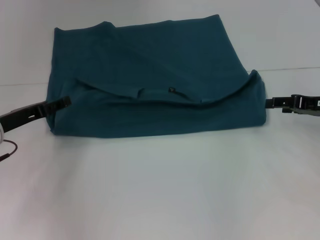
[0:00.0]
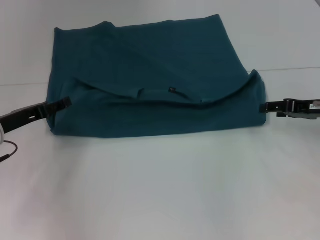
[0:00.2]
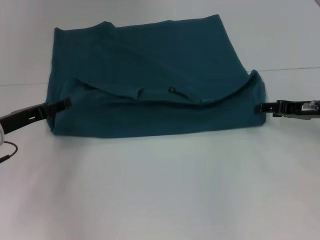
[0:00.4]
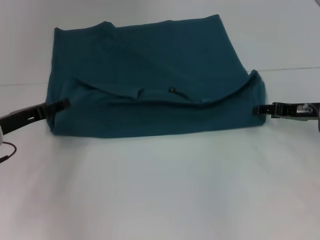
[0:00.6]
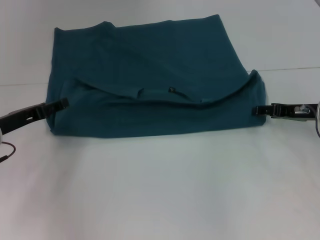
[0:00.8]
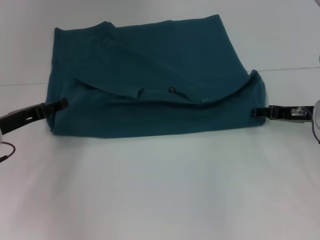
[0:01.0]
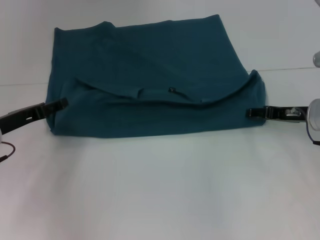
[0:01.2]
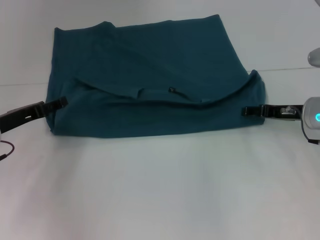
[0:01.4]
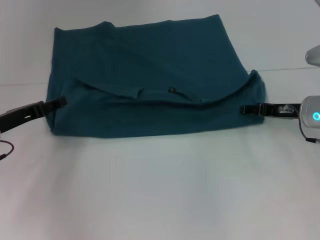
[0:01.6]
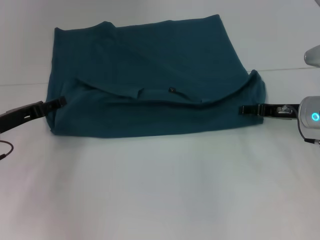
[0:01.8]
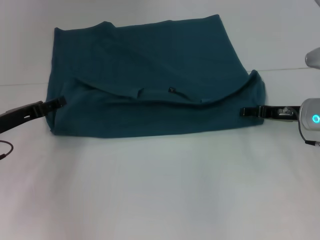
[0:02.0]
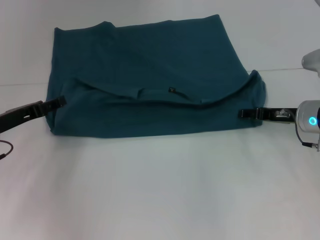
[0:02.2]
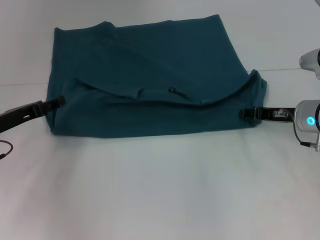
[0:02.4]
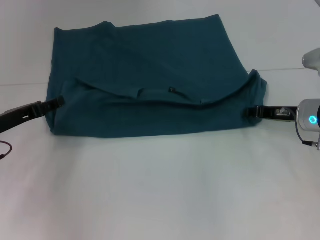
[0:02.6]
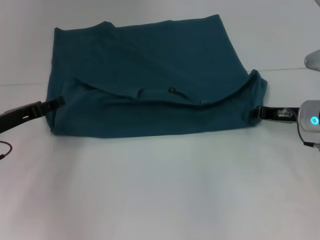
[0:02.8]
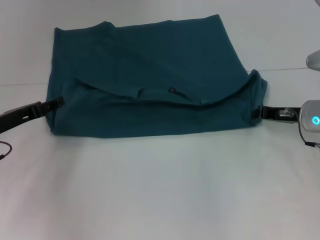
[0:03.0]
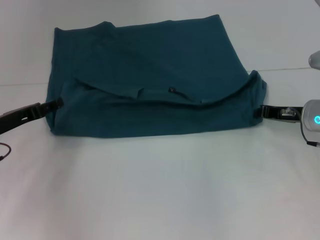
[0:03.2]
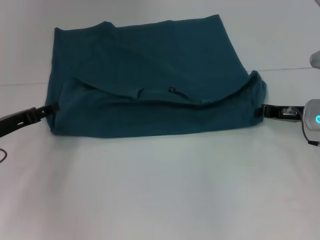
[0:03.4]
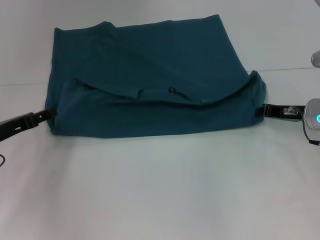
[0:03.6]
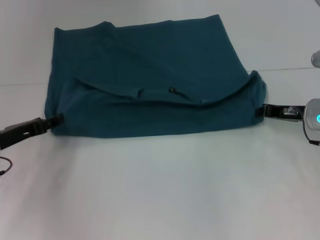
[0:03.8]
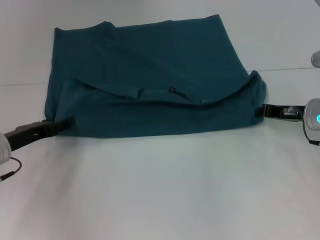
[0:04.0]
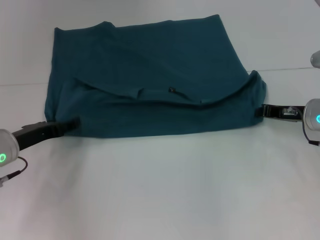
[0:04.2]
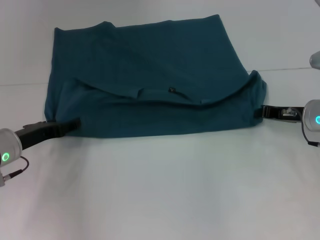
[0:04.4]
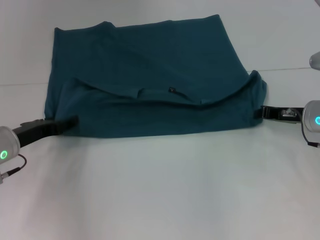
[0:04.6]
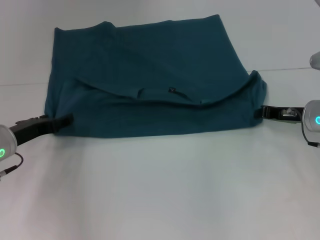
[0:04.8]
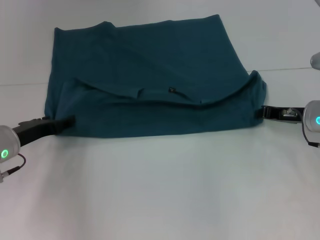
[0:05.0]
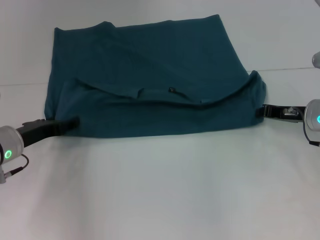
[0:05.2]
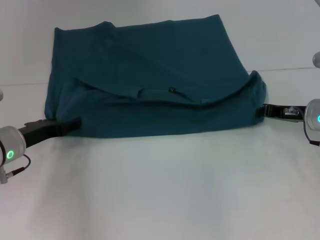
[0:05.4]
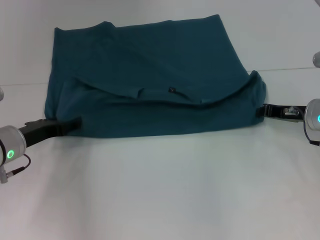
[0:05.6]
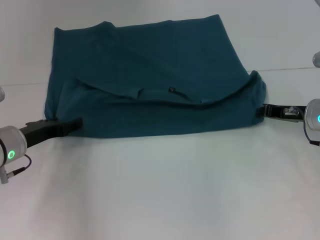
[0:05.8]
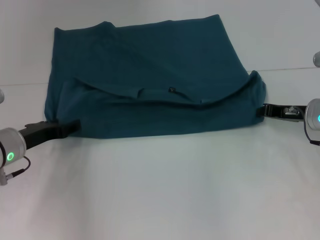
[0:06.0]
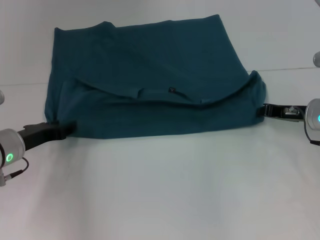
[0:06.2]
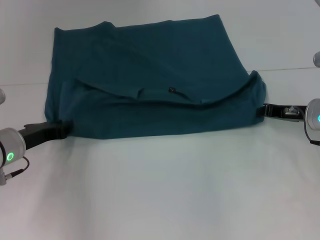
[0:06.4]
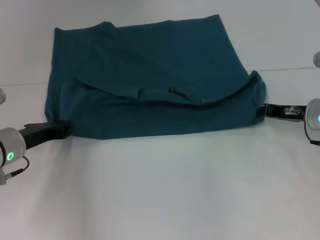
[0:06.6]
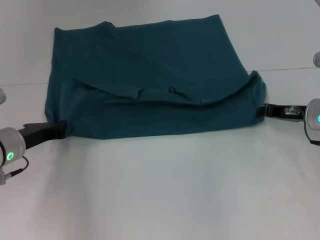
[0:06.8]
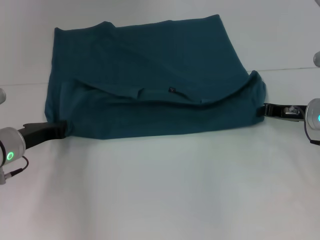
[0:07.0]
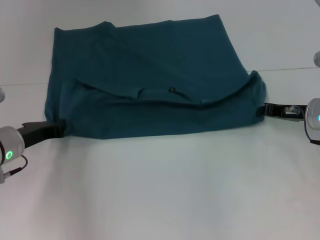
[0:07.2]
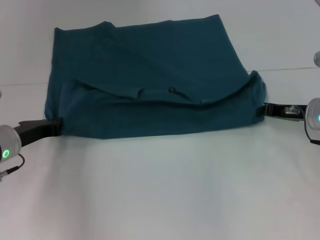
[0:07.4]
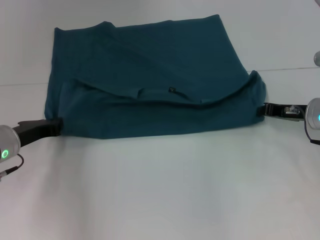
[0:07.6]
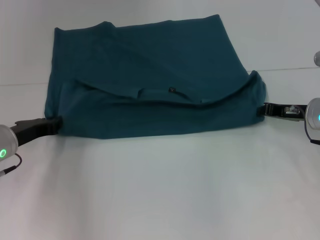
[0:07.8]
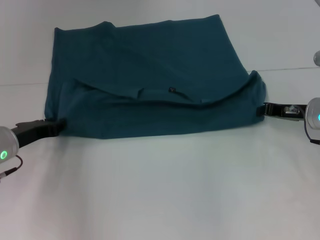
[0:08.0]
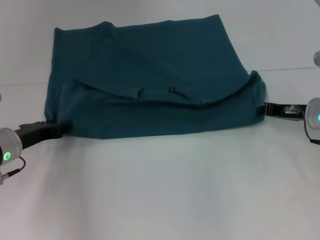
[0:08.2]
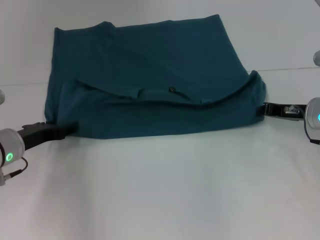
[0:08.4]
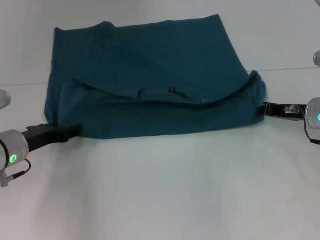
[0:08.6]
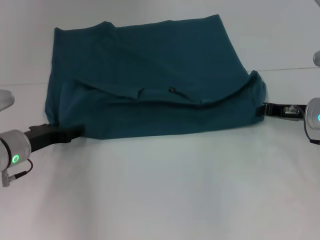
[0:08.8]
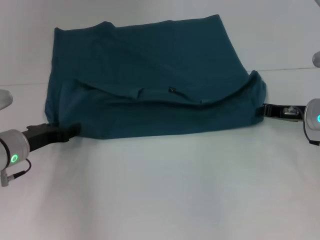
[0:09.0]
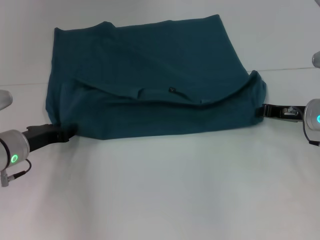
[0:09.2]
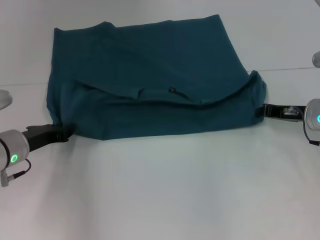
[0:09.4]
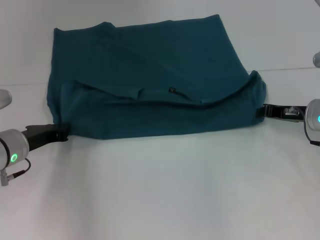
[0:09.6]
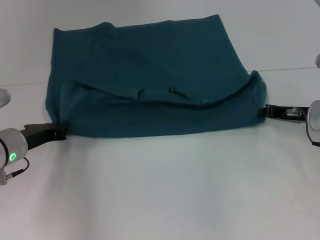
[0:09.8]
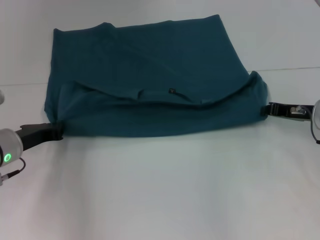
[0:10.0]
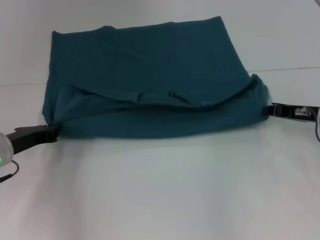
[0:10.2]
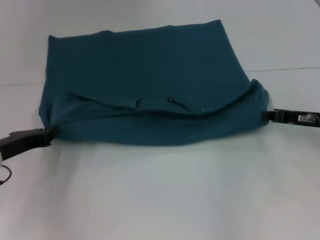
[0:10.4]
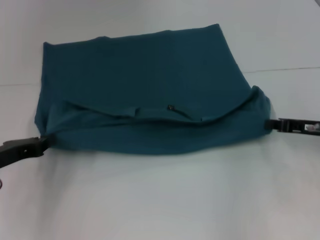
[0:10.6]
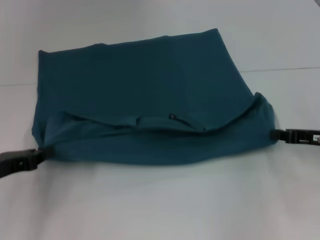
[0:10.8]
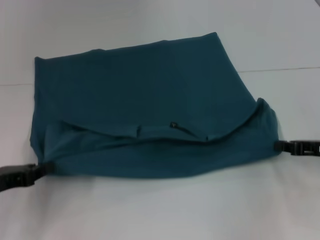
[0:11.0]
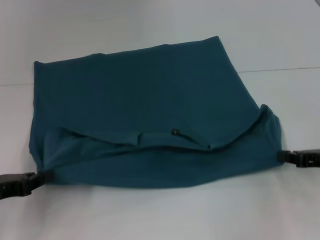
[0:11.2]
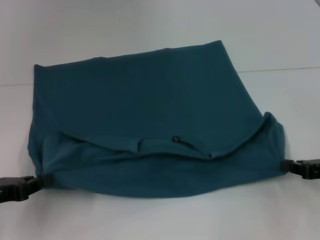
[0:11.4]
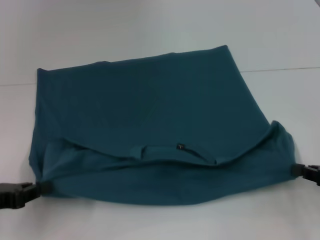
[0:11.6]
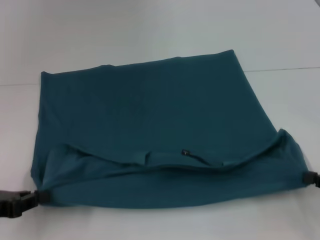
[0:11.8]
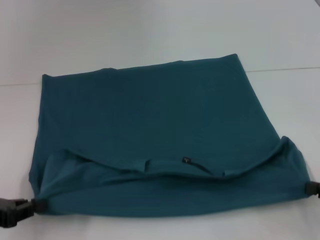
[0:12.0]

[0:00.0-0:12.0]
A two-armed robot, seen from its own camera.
0:00.0 to 0:01.6: The right gripper moves to the left, approximately 5 cm.
0:01.6 to 0:03.0: The right gripper closes up.
0:03.0 to 0:04.4: The grippers make only small movements.
0:04.4 to 0:06.0: Neither gripper changes place.
0:06.0 to 0:07.6: The left gripper closes its fingers.
0:07.6 to 0:09.0: The left gripper opens.
0:09.0 to 0:10.4: The left gripper closes.
0:10.4 to 0:12.0: The left gripper goes approximately 10 cm backward and to the left, while the right gripper travels backward and to the right by roughly 15 cm.

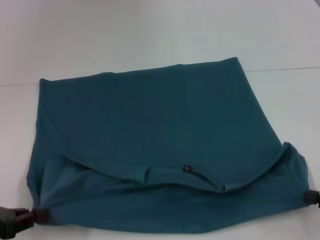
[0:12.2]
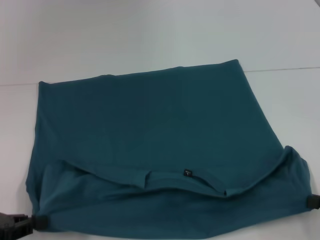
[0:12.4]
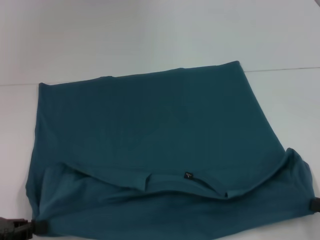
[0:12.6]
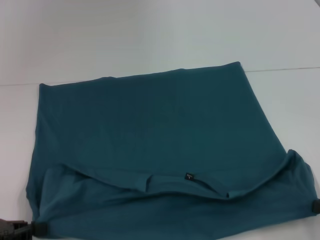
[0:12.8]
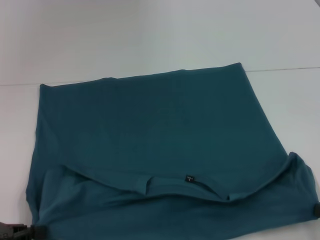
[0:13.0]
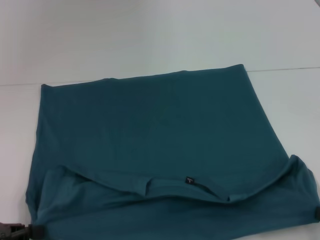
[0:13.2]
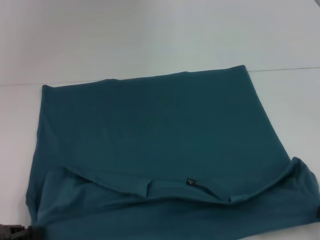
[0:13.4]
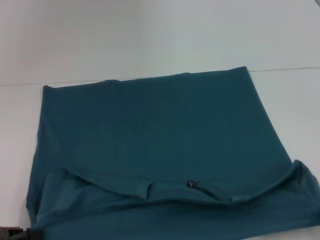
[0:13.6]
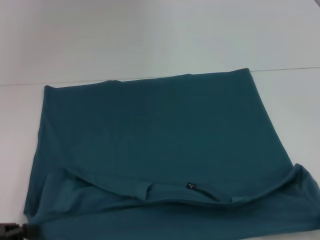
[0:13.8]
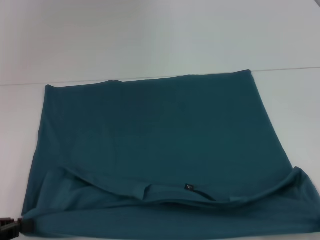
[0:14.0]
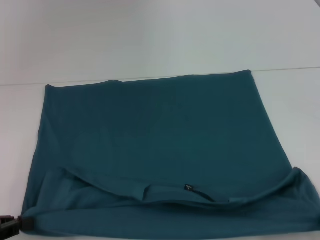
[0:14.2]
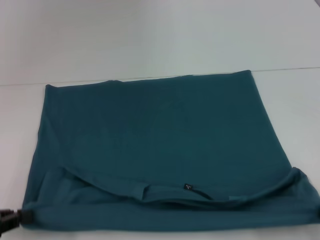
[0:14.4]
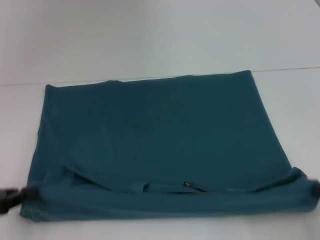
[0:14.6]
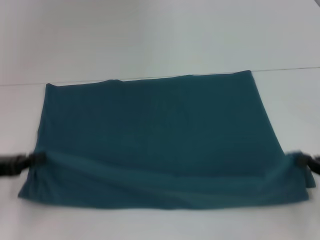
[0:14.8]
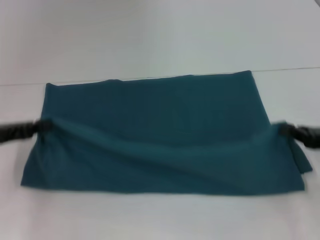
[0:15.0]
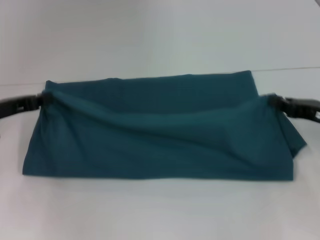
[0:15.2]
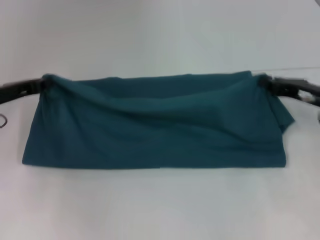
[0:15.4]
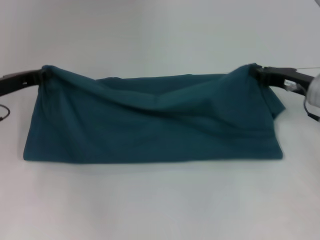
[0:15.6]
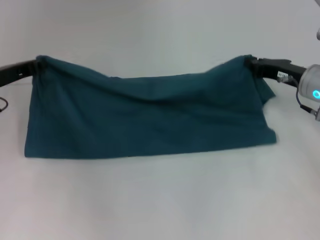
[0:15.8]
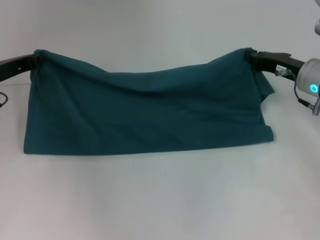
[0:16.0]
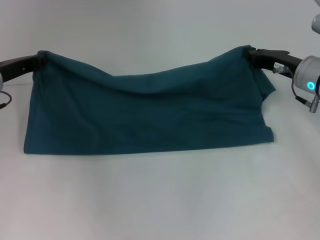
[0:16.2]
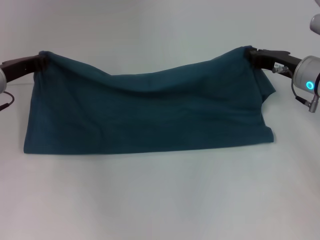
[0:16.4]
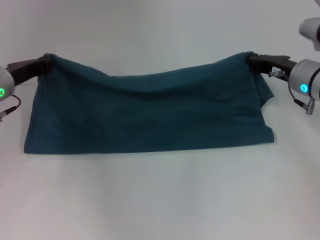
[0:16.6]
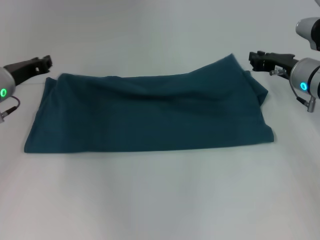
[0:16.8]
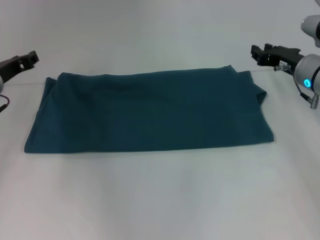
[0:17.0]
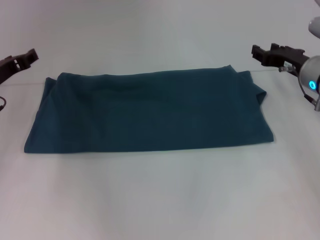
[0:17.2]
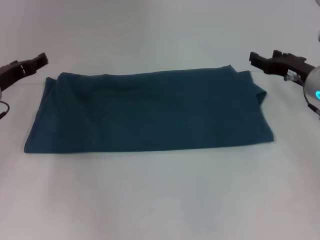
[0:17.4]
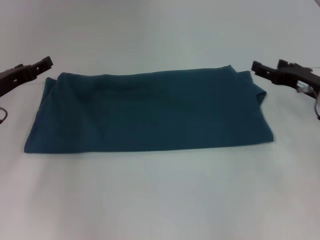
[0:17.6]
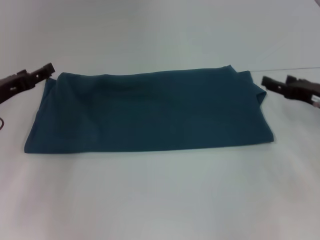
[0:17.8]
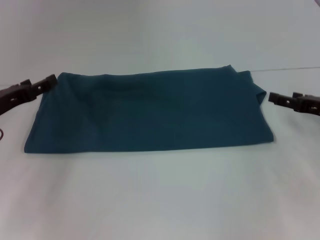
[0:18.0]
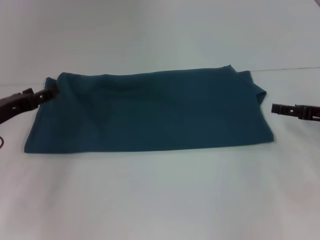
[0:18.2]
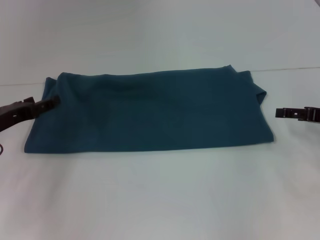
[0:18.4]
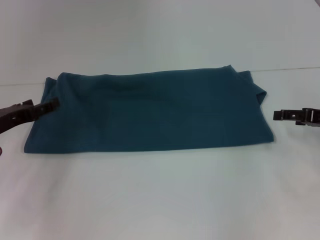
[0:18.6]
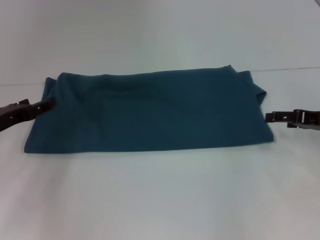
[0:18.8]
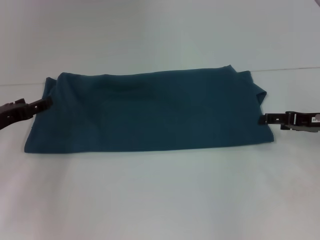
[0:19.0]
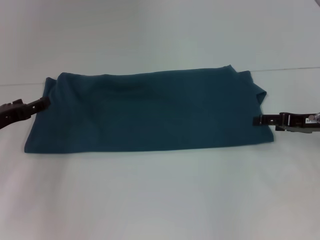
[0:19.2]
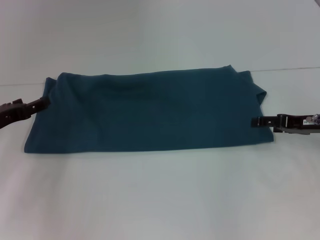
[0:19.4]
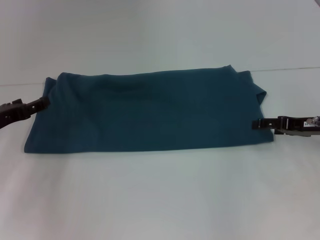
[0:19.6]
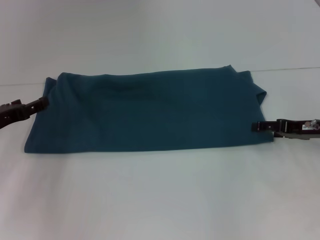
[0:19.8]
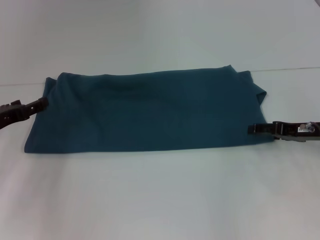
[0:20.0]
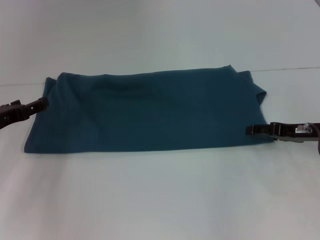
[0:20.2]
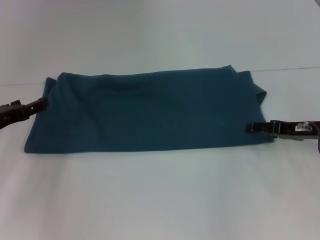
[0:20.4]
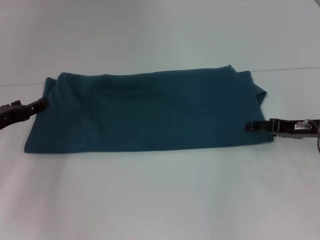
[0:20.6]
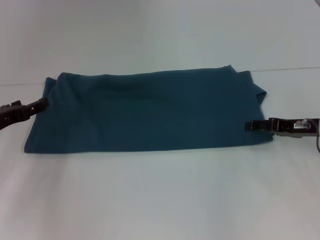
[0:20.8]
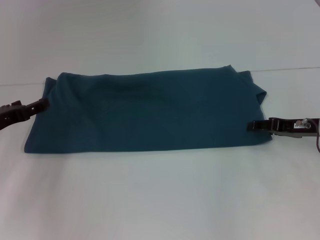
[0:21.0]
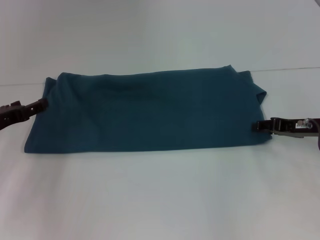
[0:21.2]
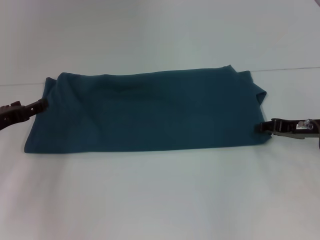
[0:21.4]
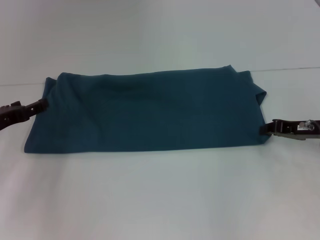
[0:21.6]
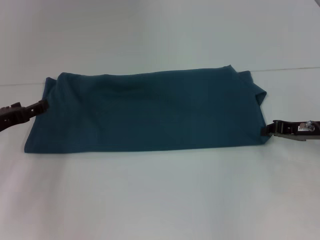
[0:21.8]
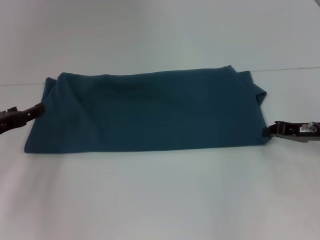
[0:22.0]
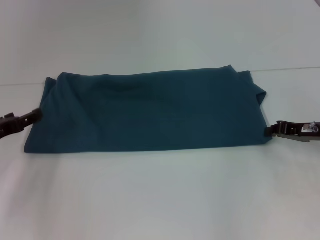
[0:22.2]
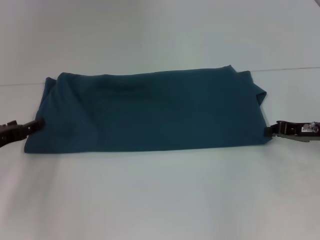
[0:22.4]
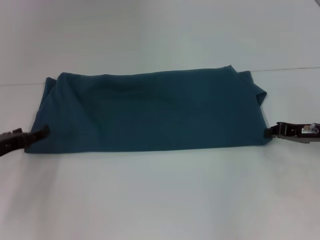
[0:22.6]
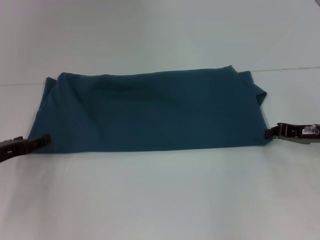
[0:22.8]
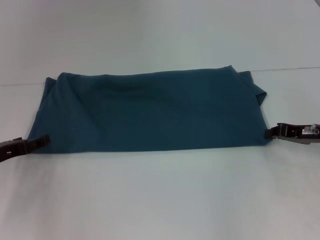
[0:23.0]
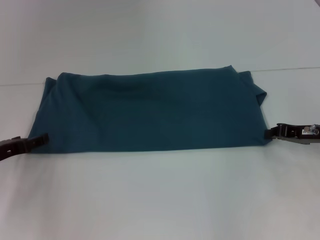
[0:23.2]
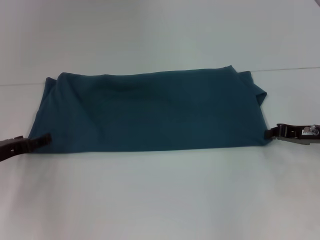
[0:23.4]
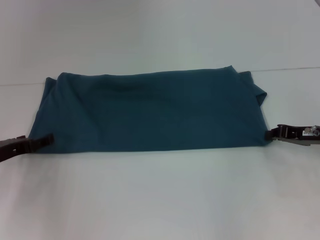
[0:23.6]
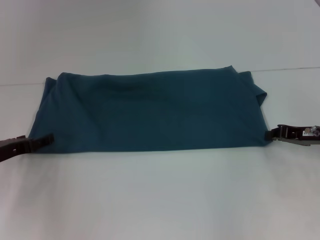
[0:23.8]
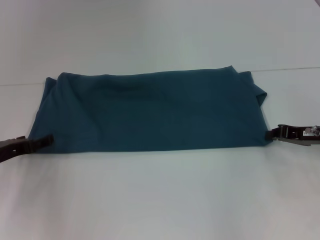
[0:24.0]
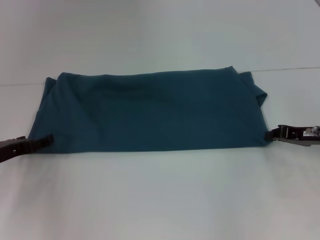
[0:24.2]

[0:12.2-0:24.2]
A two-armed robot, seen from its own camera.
Step, 0:13.2 to 0:16.8: Fold the clothes to the left.
Step, 0:13.2 to 0:16.8: Fold the clothes to the right.
0:12.2 to 0:13.8: The right gripper changes place by some 5 cm.
0:13.8 to 0:15.2: The two grippers go roughly 15 cm forward.
0:15.2 to 0:16.6: The right gripper heads forward and to the left, covering approximately 10 cm; the left gripper is displaced forward by about 5 cm.
0:16.6 to 0:18.2: The right gripper heads to the right and backward, covering approximately 10 cm, and opens; the left gripper goes approximately 5 cm backward, and opens its fingers.
0:18.2 to 0:19.8: The grippers stay close to where they were, moving slightly.
0:19.8 to 0:21.2: The two grippers keep their place.
0:21.2 to 0:22.6: The right gripper closes up.
0:22.6 to 0:24.2: The grippers stay close to where they were, moving slightly.
